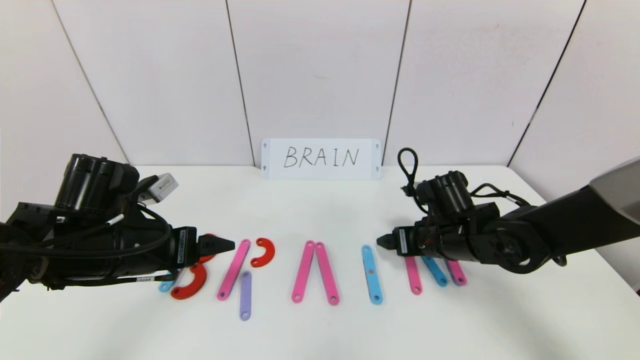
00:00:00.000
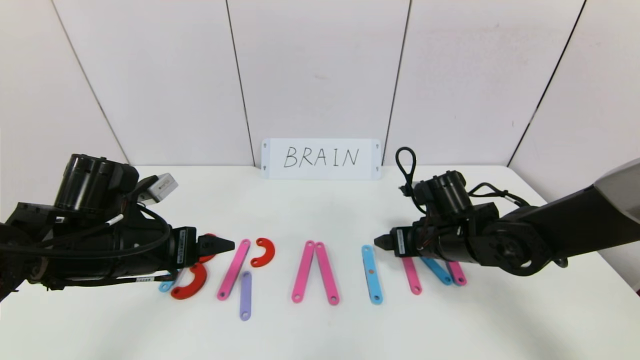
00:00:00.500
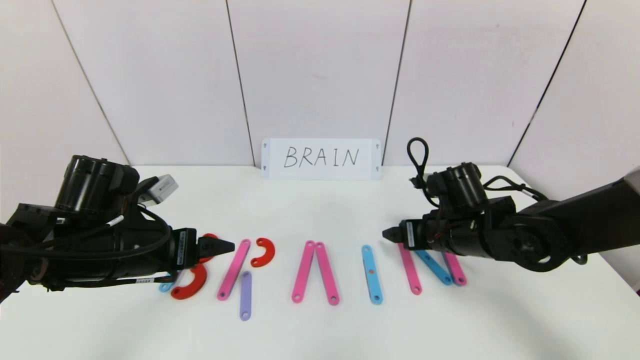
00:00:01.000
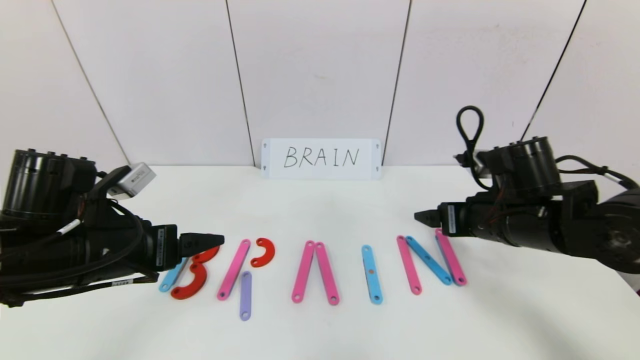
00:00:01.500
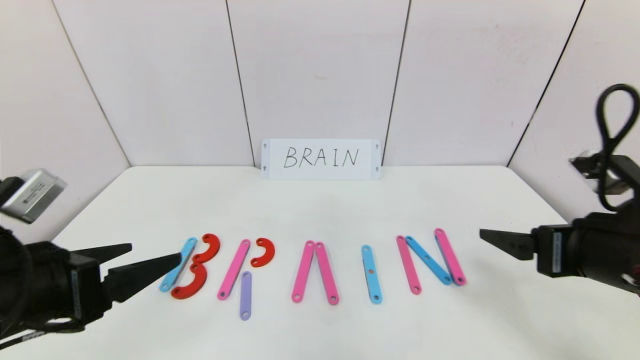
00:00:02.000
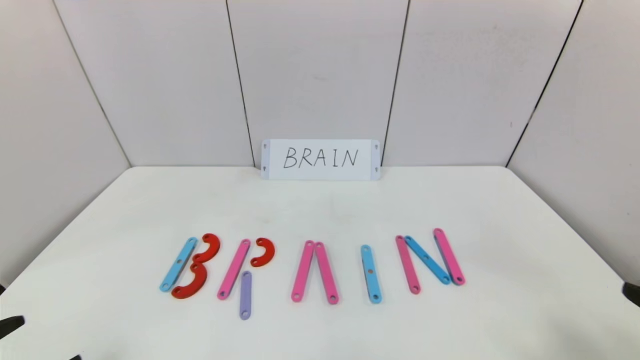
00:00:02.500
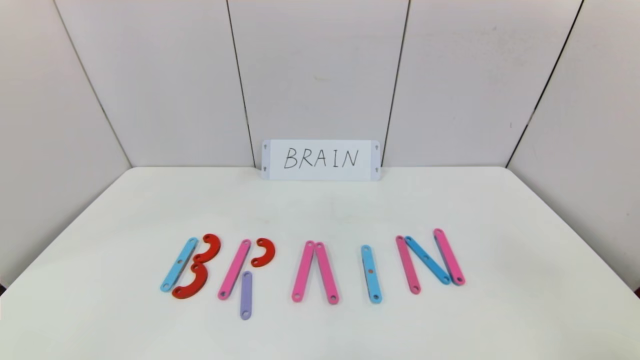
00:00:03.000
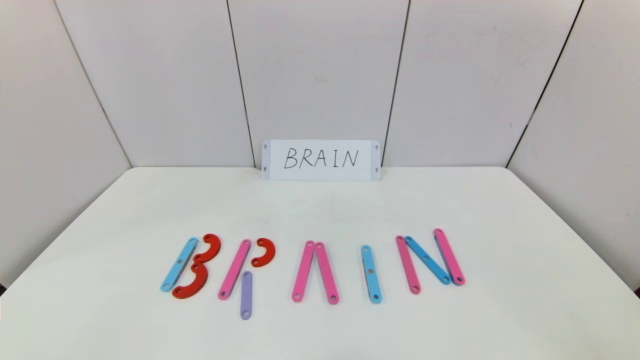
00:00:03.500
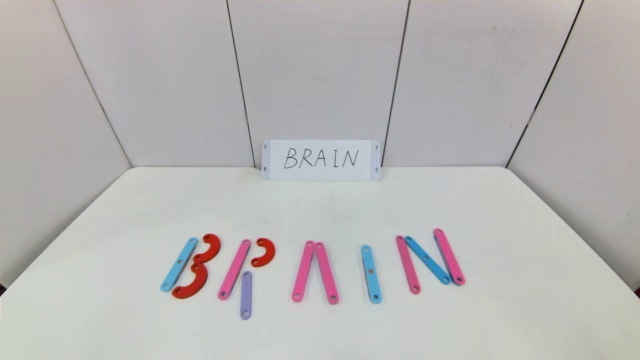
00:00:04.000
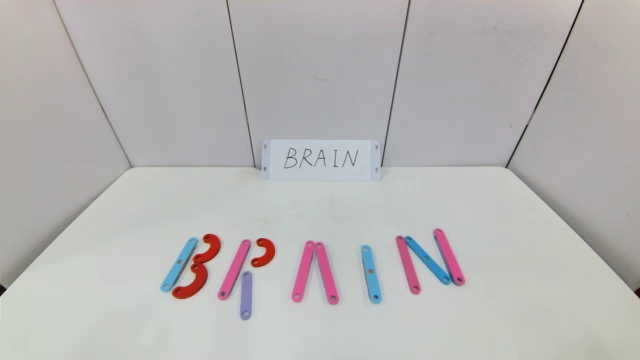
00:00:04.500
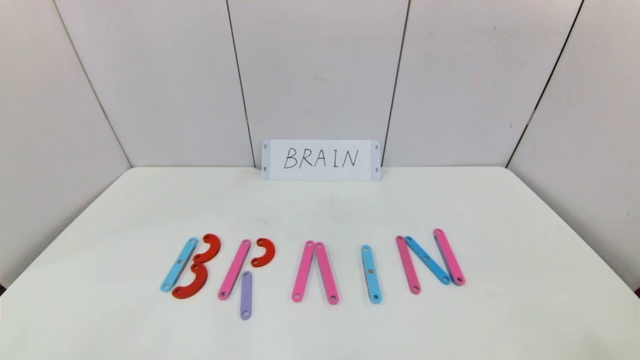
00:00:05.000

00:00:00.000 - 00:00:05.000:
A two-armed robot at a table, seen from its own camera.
Task of the whole recording: rearrange the word baai as brain.
00:00:00.000 - 00:00:02.500: The right gripper goes some 35 cm backward, to the right and upward. Meanwhile the left gripper goes roughly 20 cm backward.
